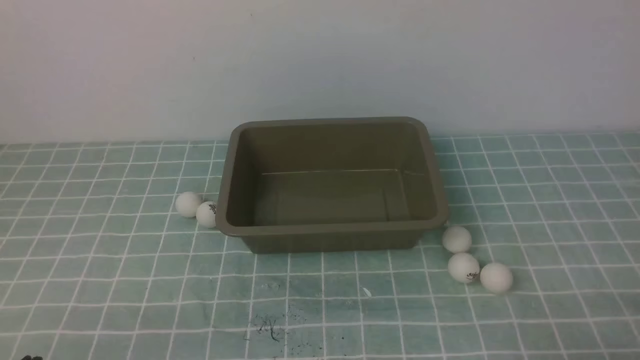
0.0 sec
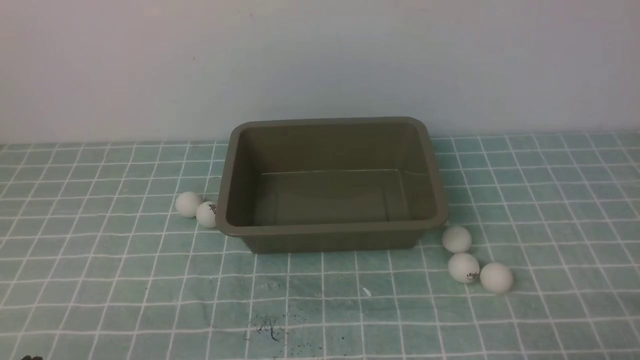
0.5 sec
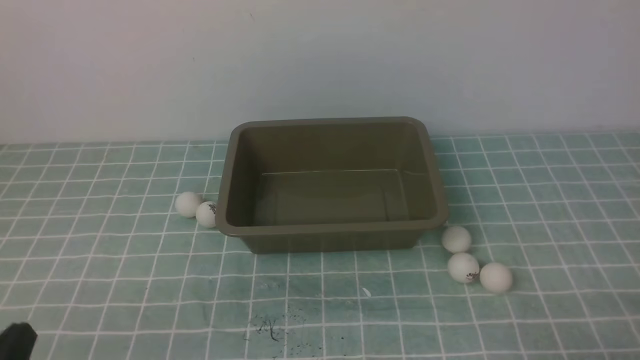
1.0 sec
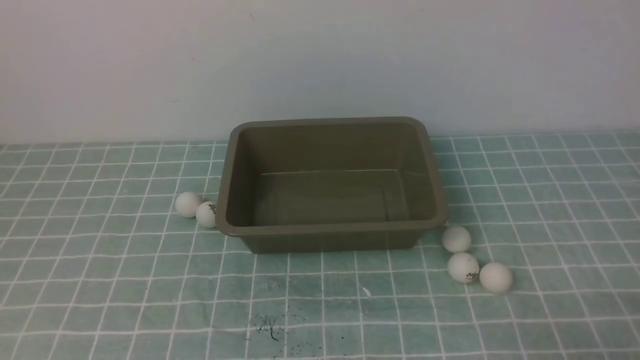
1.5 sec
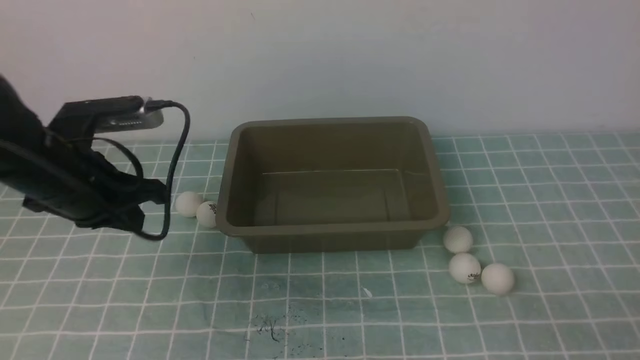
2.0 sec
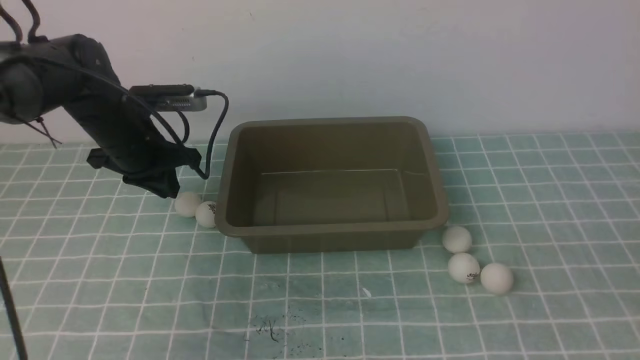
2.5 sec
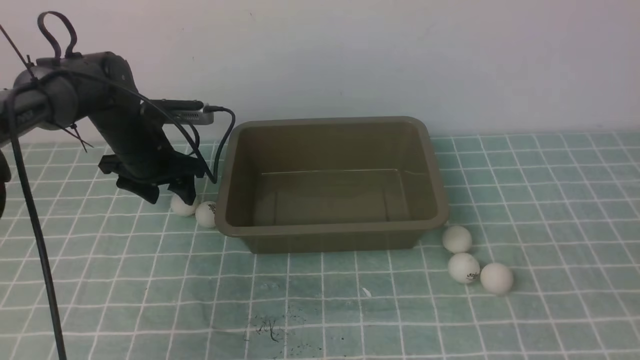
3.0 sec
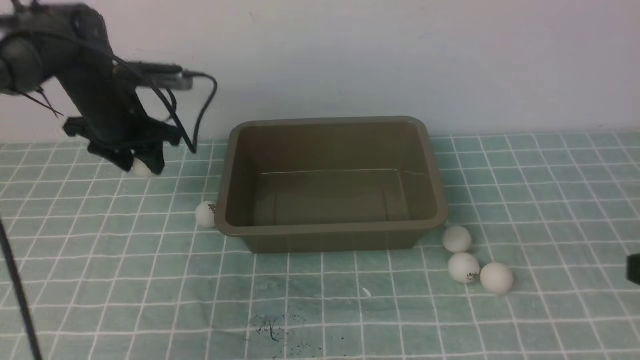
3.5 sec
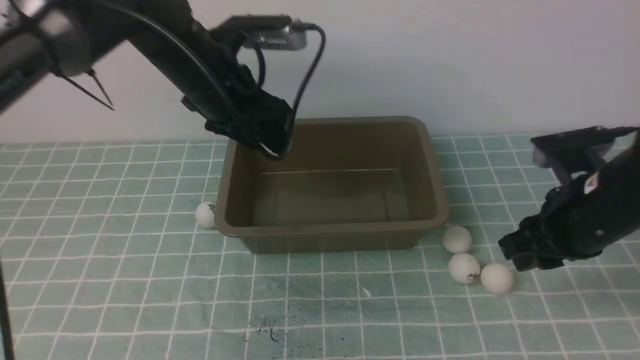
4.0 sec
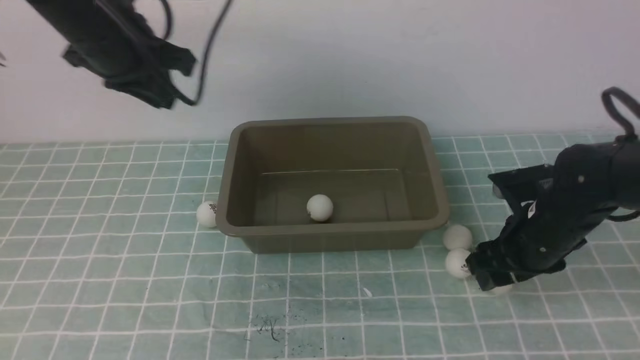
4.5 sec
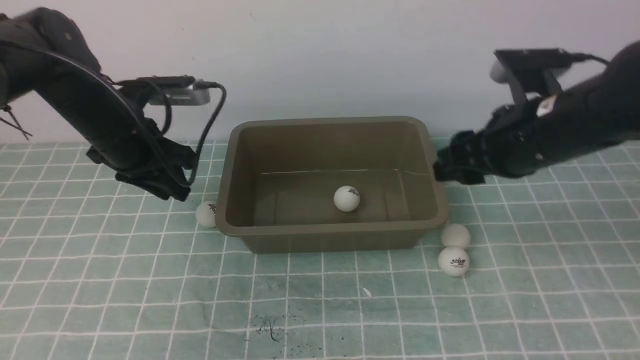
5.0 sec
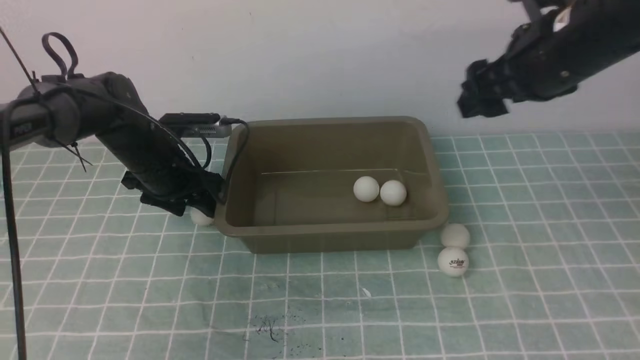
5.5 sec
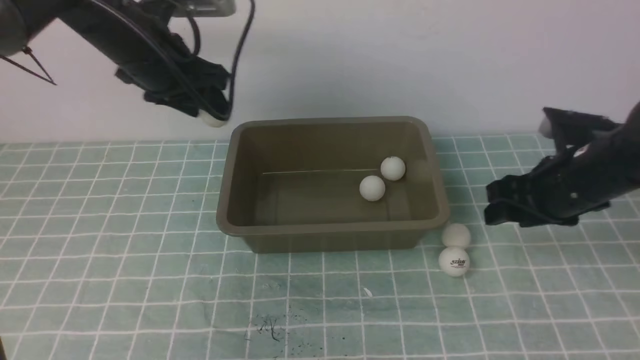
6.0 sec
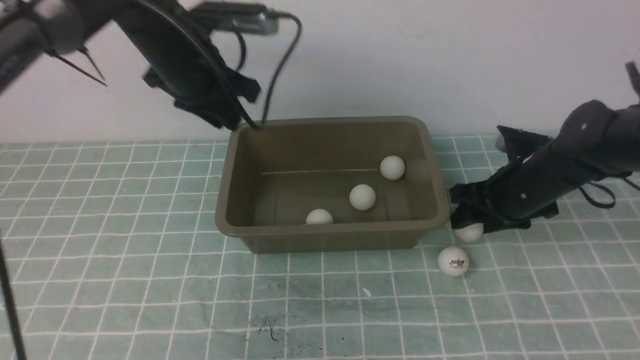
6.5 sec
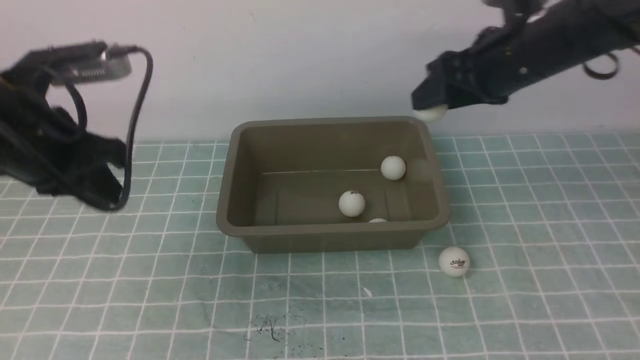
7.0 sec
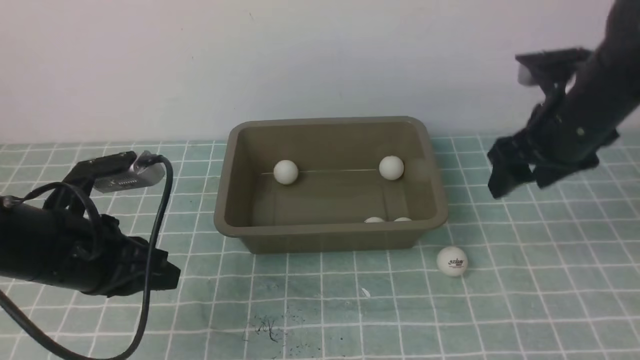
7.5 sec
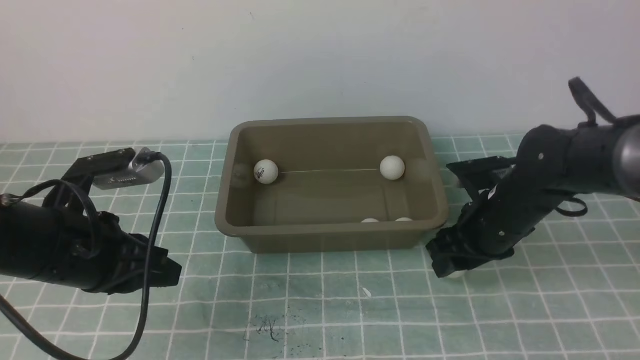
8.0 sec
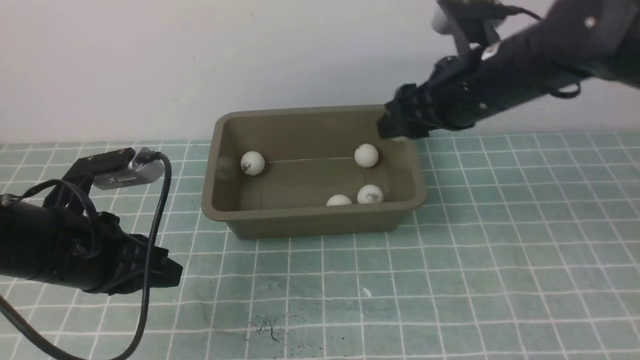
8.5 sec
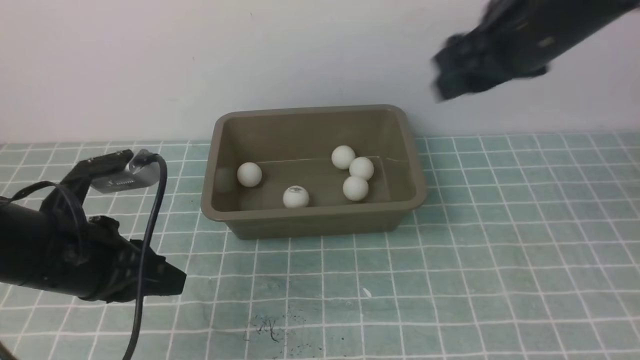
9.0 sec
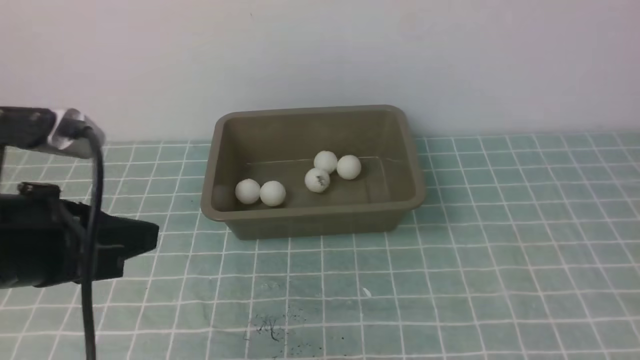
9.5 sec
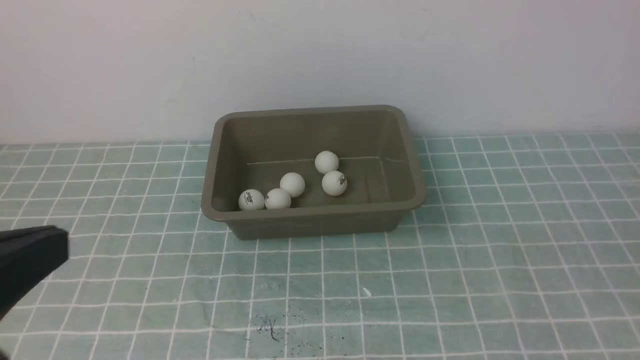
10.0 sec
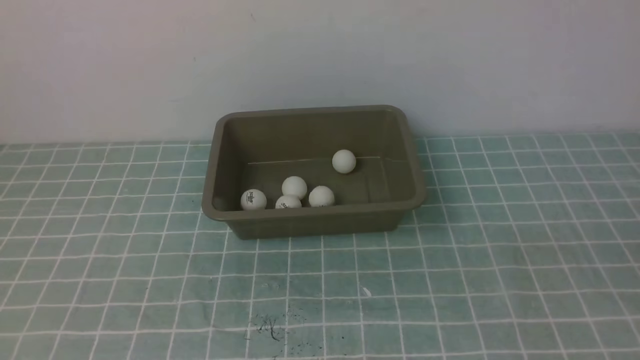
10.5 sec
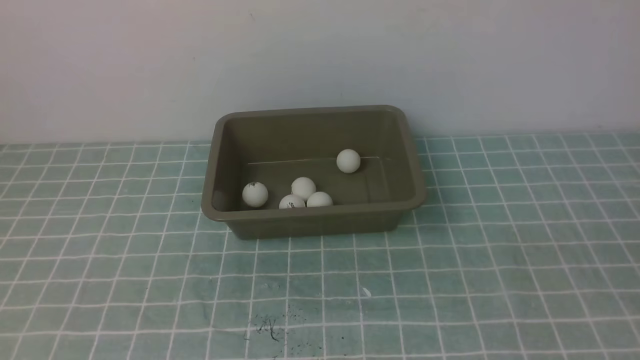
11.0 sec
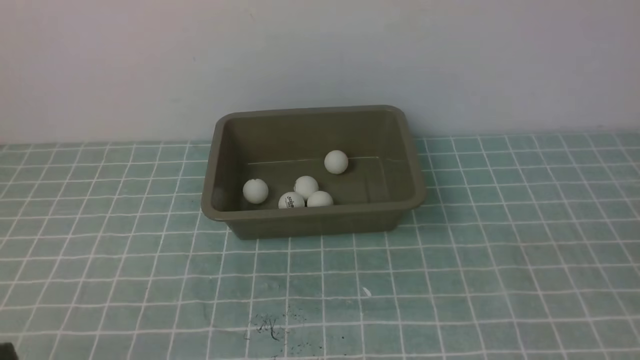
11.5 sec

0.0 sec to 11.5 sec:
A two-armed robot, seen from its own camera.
Step, 0.0 sec to 3.0 sec: use the left arm to clamp the table tennis ball closest to it.
Step, 3.5 sec to 4.0 sec: use the left arm to put the table tennis ball into the box.
Step, 7.5 sec to 8.0 sec: use the right arm to clamp the table tennis ball closest to it.
0.0 sec to 2.0 sec: The left gripper goes about 25 cm forward and upward.
2.0 sec to 4.0 sec: The right gripper shifts roughly 20 cm forward, and opens its fingers. The left gripper moves forward and to the right, about 15 cm, and opens up.
4.0 sec to 6.0 sec: The left gripper goes downward and returns, approximately 10 cm each way, and closes, then opens again, while the right gripper swings up and down, some 15 cm each way, with 2 reversals.
6.0 sec to 7.5 sec: The right gripper shifts about 5 cm upward. The left gripper moves backward, about 20 cm, and closes.
7.5 sec to 9.5 sec: The left gripper is displaced upward and backward by approximately 10 cm; the right gripper shifts about 40 cm backward and upward, and closes its fingers.
9.5 sec to 11.5 sec: The left gripper heads backward and downward, covering approximately 15 cm. Meanwhile the right gripper goes approximately 10 cm downward.

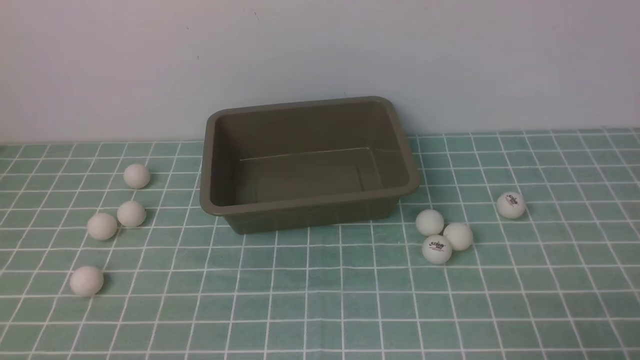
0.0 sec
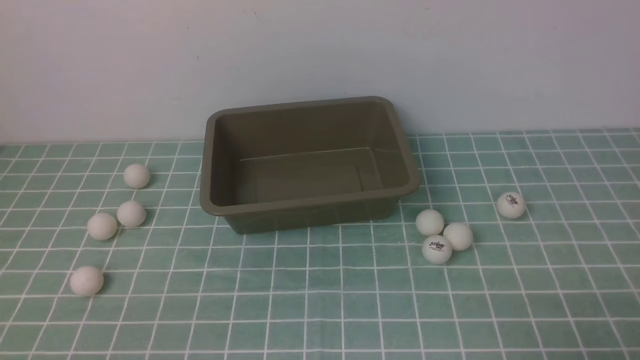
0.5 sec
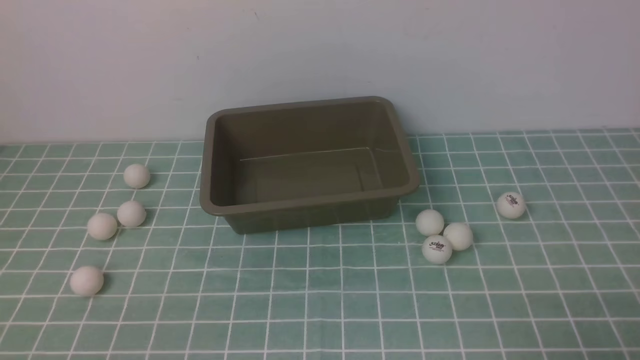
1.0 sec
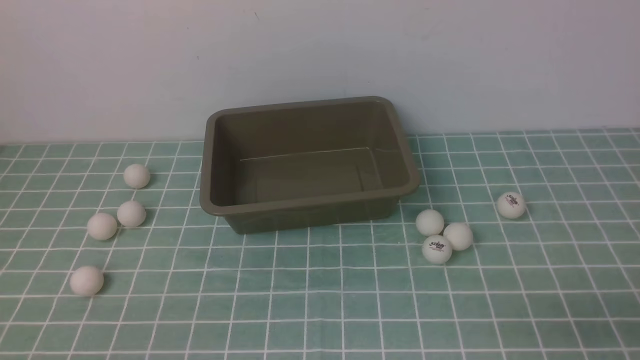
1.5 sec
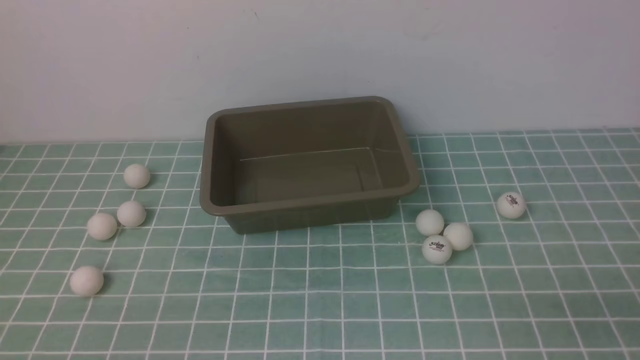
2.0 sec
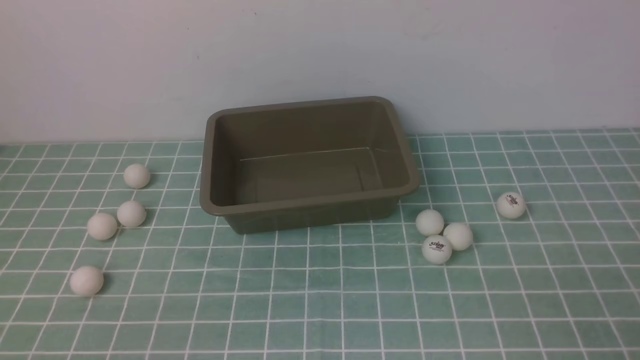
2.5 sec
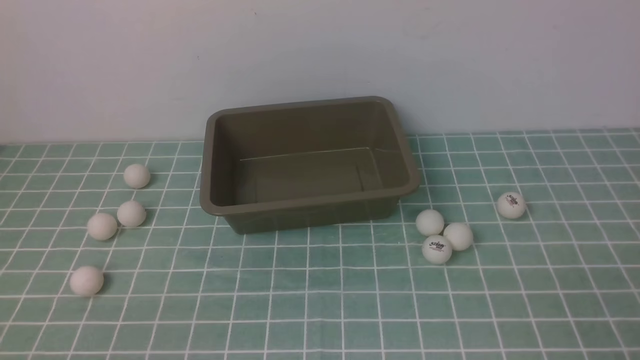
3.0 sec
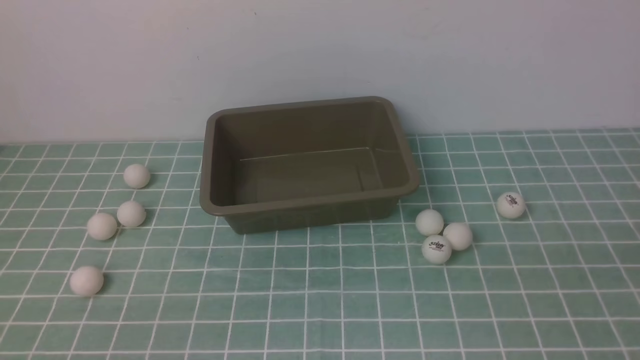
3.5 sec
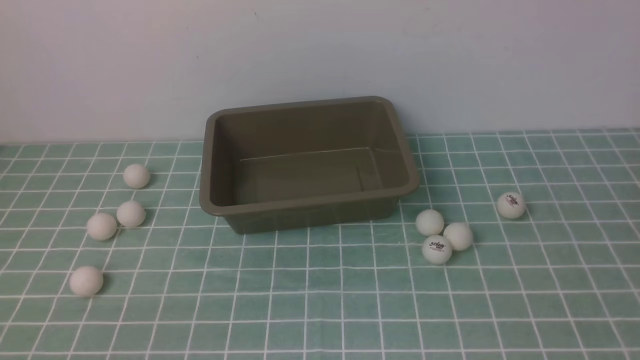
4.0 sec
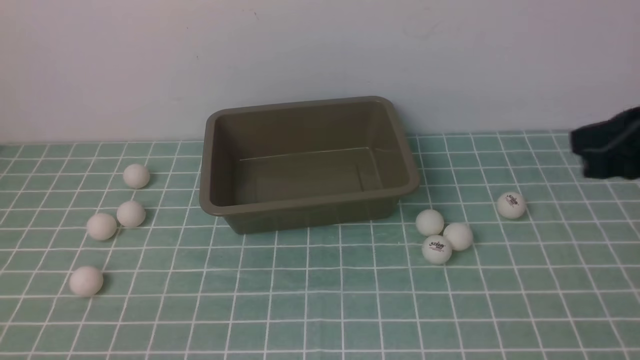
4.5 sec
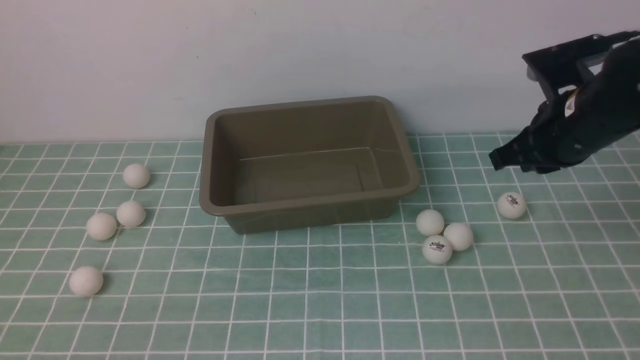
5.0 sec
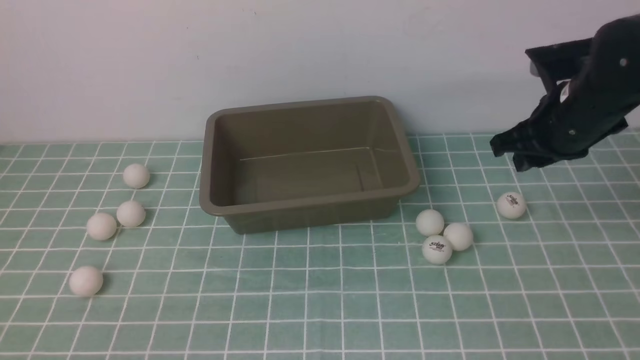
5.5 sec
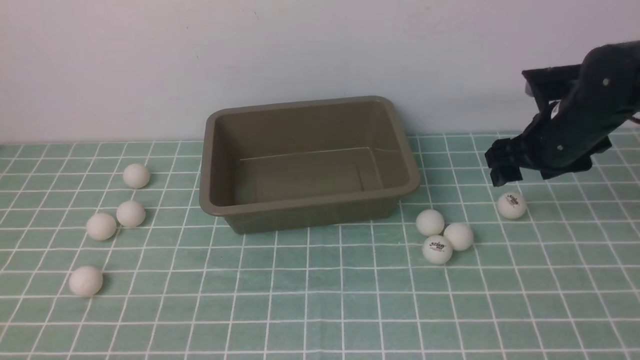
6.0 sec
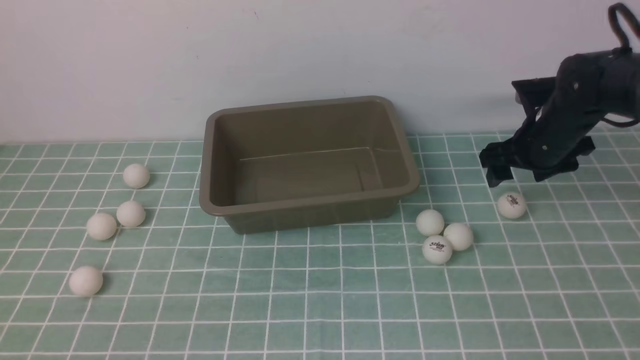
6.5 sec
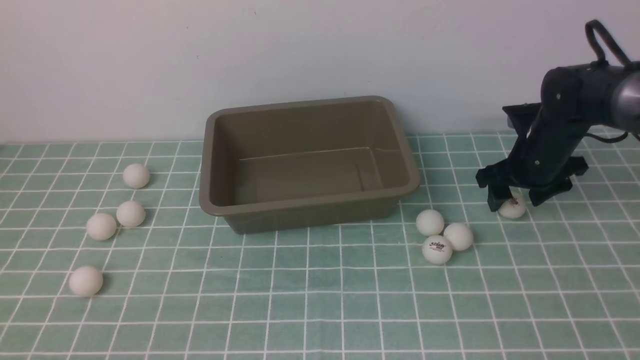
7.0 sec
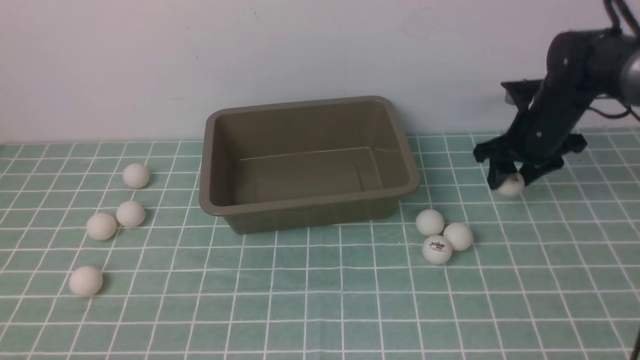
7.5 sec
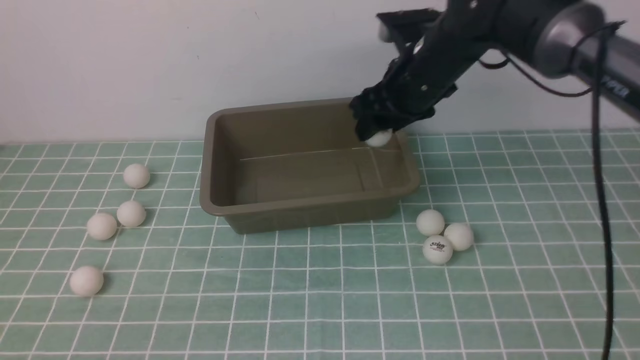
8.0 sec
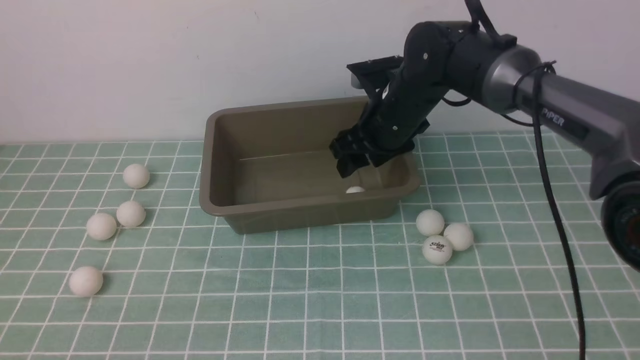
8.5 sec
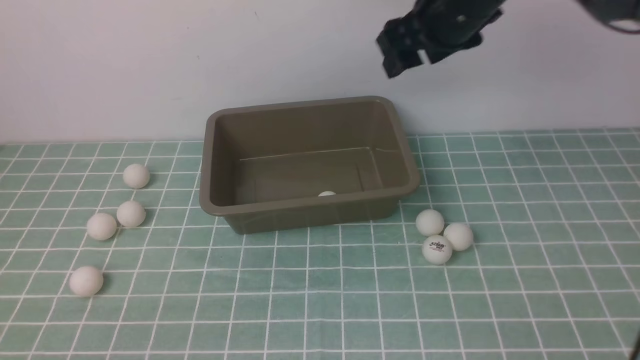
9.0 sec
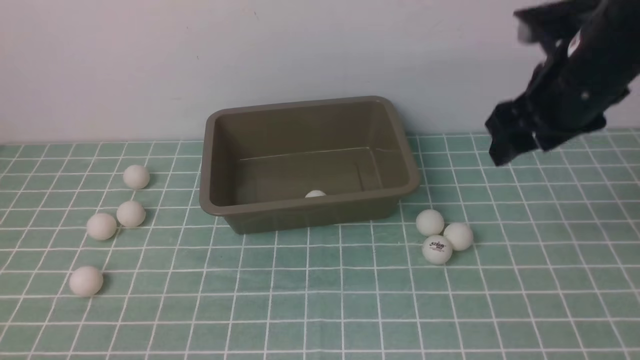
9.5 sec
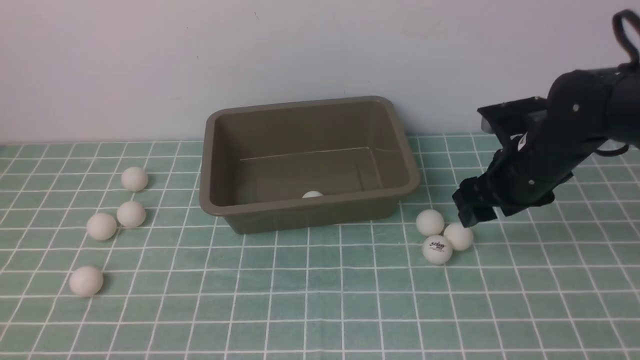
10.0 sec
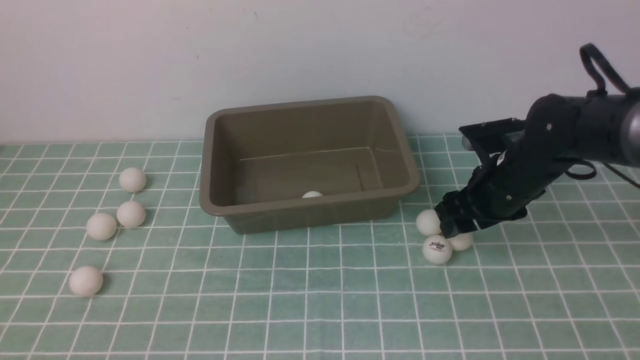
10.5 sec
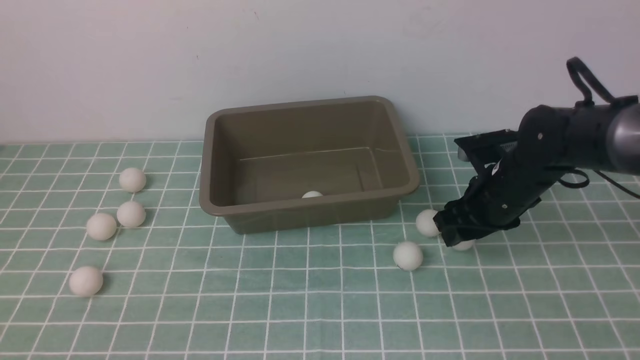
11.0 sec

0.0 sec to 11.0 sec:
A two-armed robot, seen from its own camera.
Step, 0.0 sec to 7.5 sec: use the right arm to clamp the table tennis ball closest to it.
Step, 8.0 sec to 8.5 sec: use the right arm to put the table tennis ball into the box.
3.5 sec to 5.5 sec: The right gripper moves forward, roughly 35 cm, and opens up.
5.5 sec to 7.5 sec: The right gripper shifts about 15 cm to the left.
7.5 sec to 9.0 sec: The right gripper travels to the right and backward by some 15 cm, and travels upward and back again, some 10 cm each way.
9.0 sec to 11.0 sec: The right gripper goes about 5 cm upward.
